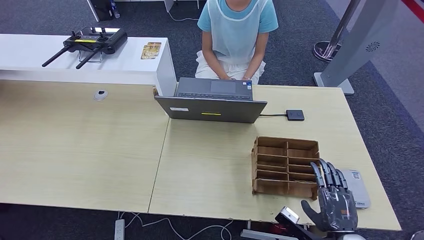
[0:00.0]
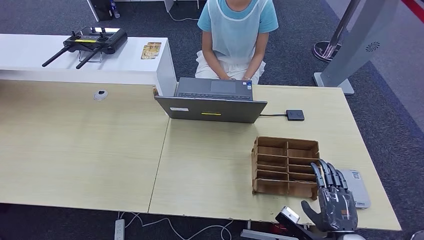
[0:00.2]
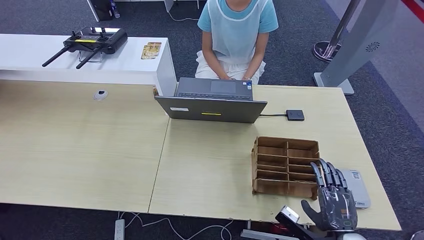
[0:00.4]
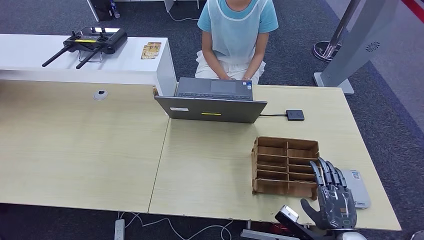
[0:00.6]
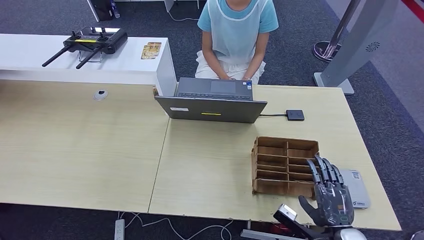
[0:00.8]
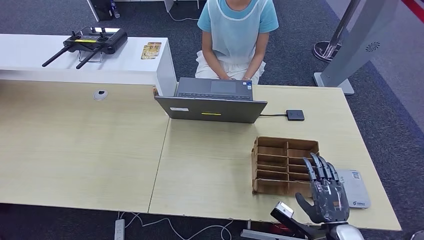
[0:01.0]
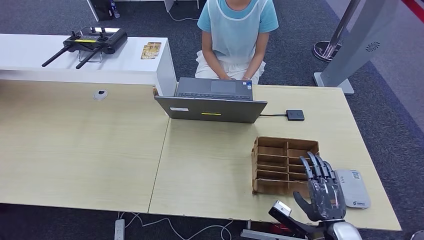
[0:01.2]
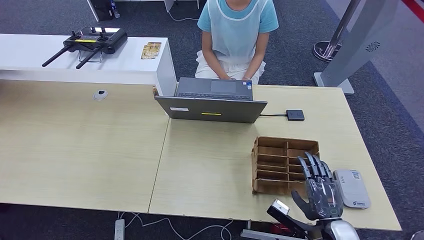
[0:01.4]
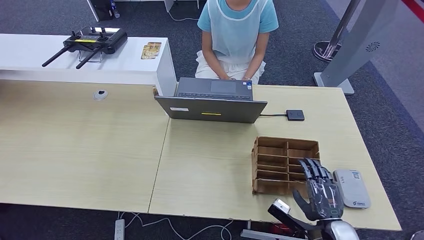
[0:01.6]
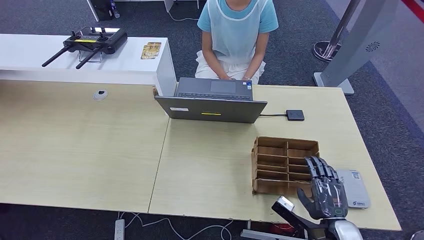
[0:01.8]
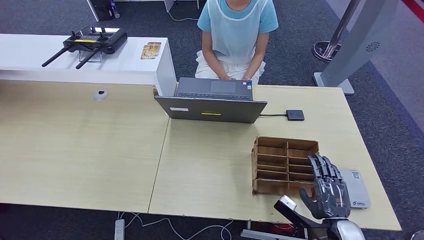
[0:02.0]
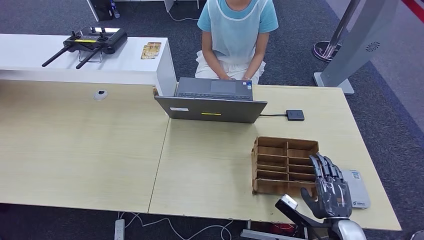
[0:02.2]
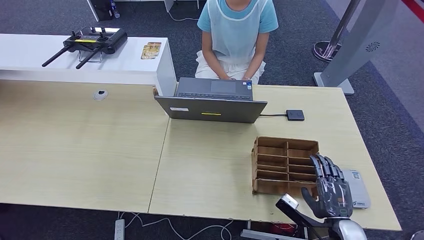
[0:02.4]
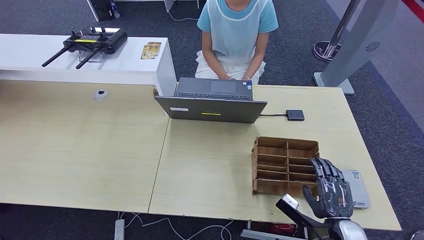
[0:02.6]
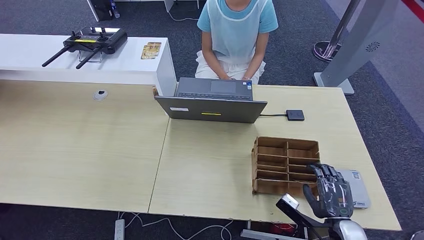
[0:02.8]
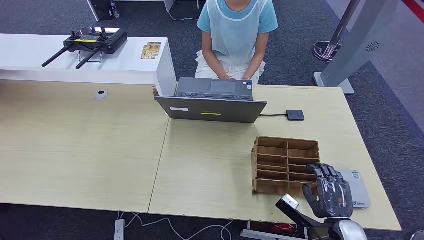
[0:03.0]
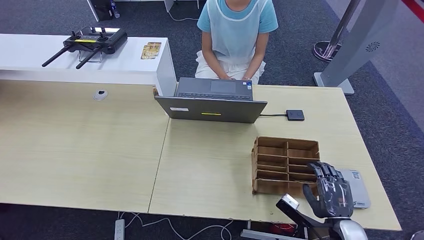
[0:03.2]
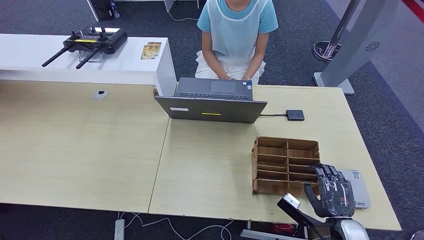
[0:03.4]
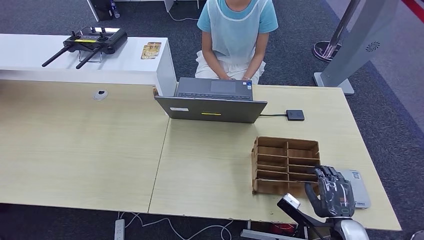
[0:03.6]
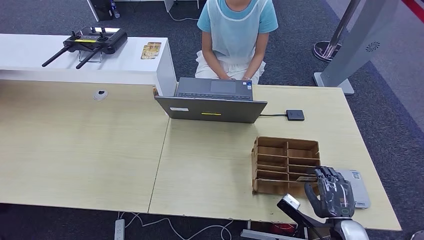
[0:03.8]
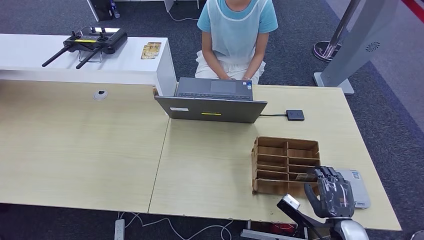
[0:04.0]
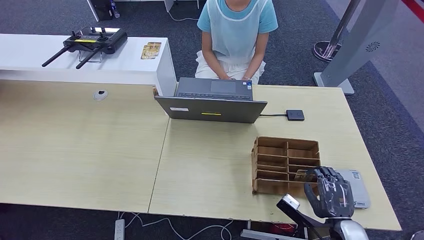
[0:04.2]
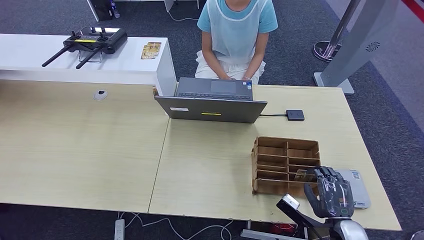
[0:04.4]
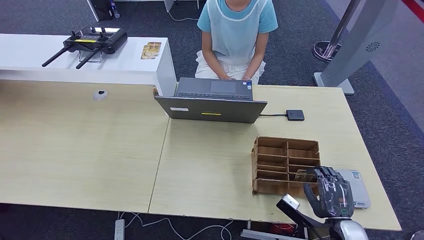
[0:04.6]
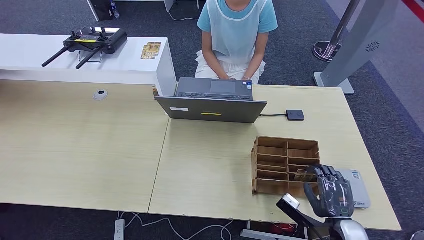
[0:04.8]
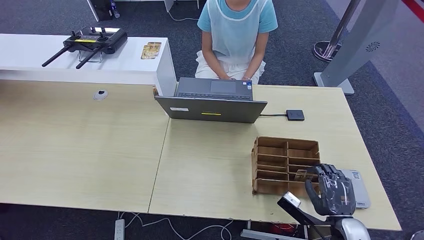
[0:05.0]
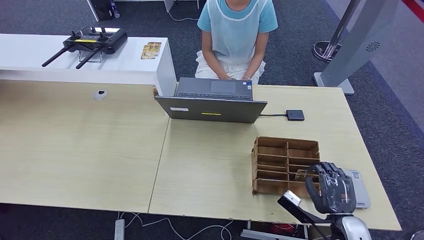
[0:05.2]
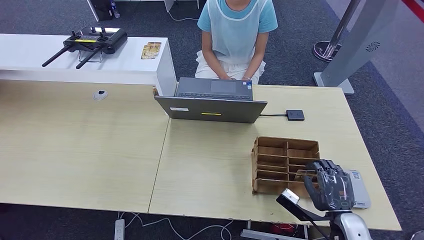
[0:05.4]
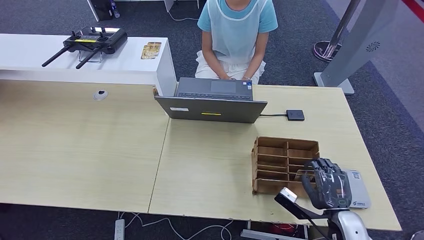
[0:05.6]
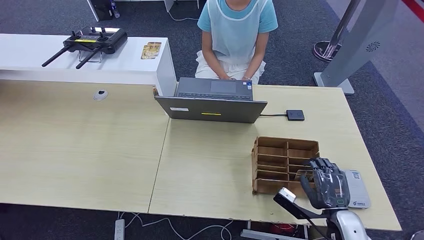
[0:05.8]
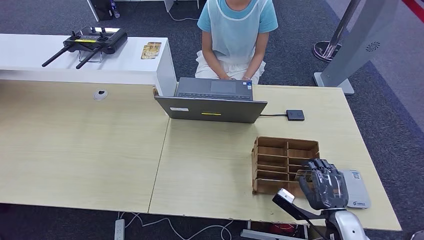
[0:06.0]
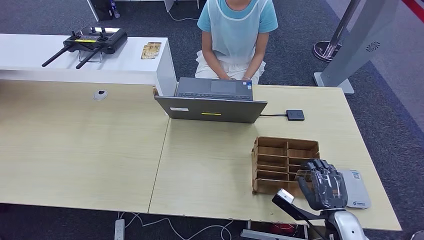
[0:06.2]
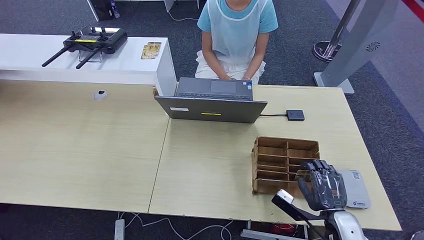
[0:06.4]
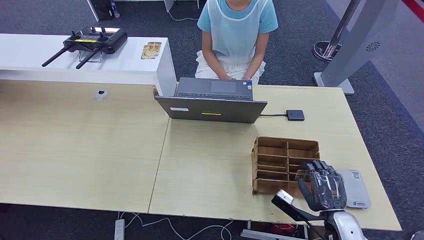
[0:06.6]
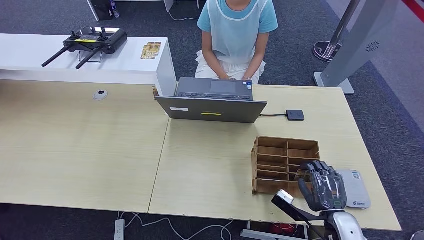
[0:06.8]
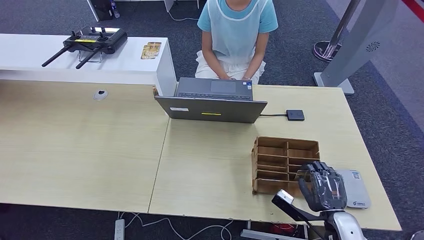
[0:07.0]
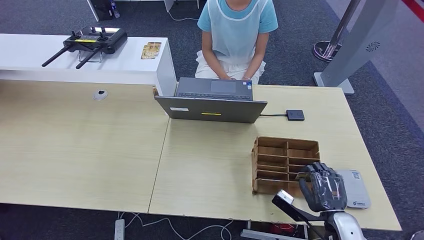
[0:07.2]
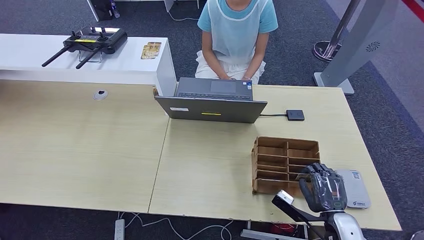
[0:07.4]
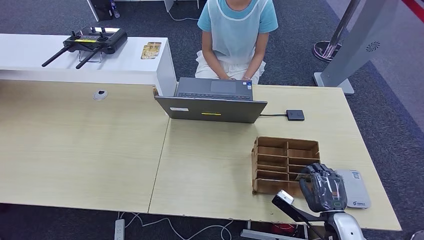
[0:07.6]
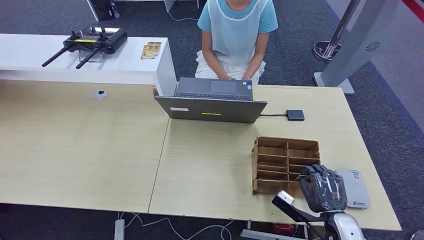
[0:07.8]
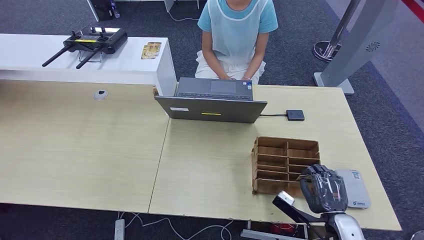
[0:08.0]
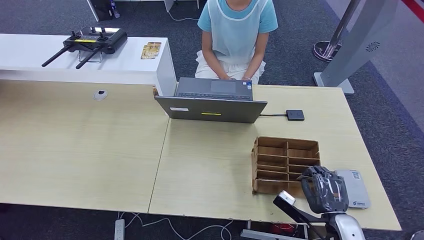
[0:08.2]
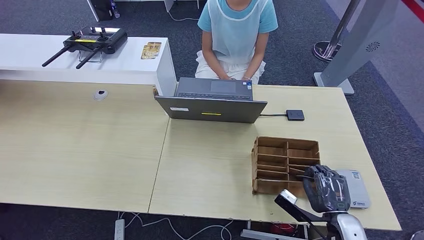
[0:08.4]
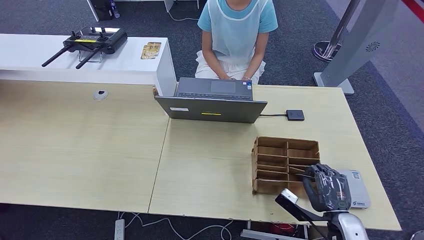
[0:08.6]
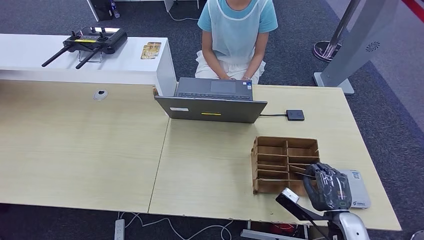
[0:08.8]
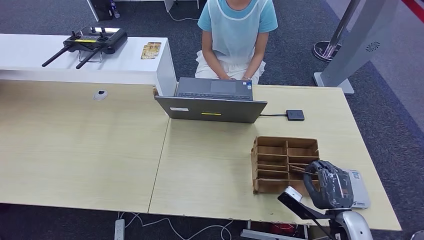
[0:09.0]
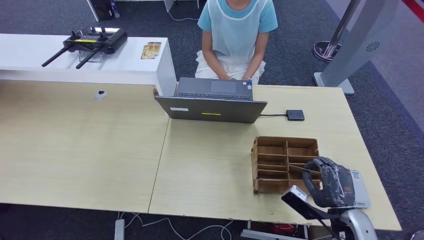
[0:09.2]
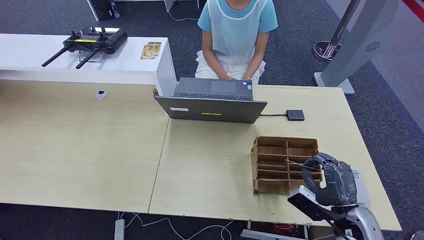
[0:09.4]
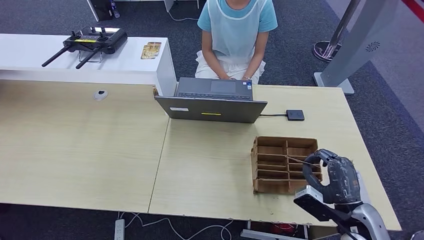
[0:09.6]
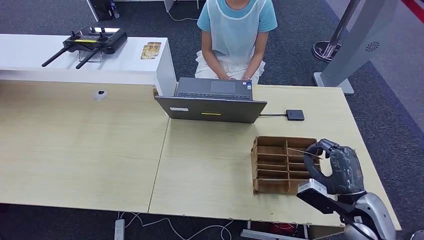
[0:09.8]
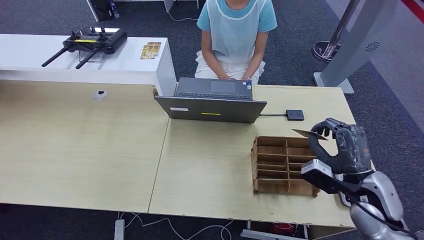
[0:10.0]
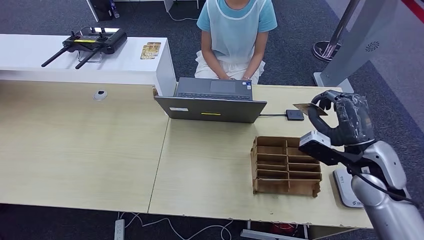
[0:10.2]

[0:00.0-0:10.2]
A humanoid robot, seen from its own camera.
Step, 0:00.0 to 0:09.0: Pick up the room key from the key card box.
0:00.0 to 0:03.0: The hands move only a little.
0:03.0 to 0:04.4: Both hands stay put.
0:04.4 to 0:05.8: The hands move only a little.
0:05.8 to 0:08.8: Both hands stay about where they are.
0:08.8 to 0:10.2: The right hand moves upward and forward, approximately 20 cm.

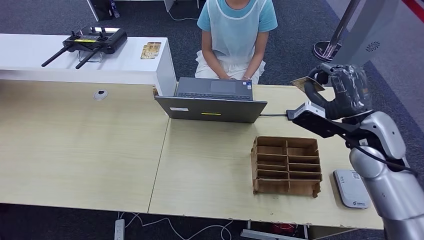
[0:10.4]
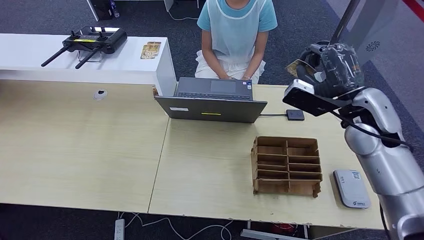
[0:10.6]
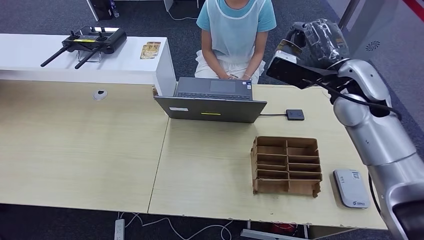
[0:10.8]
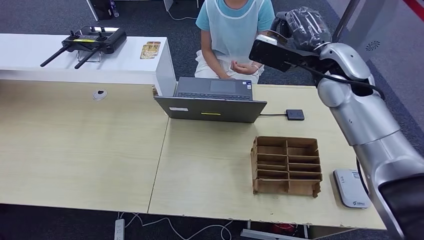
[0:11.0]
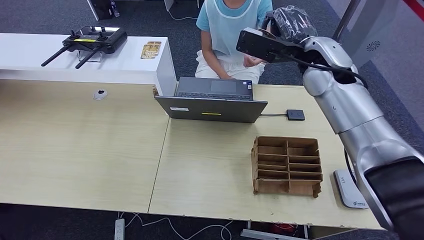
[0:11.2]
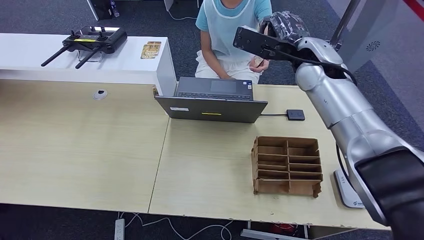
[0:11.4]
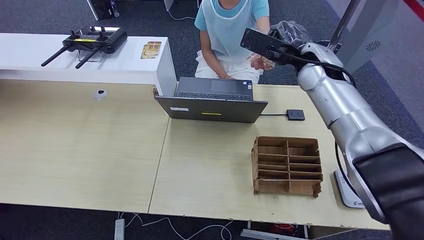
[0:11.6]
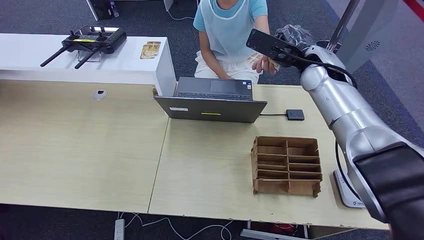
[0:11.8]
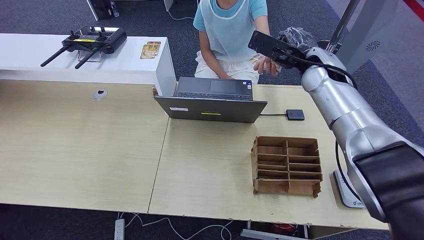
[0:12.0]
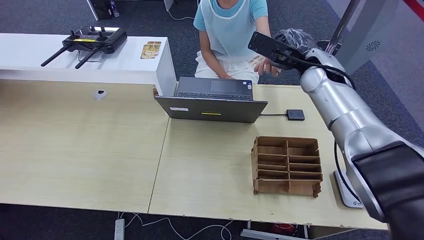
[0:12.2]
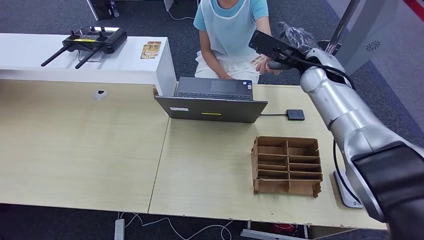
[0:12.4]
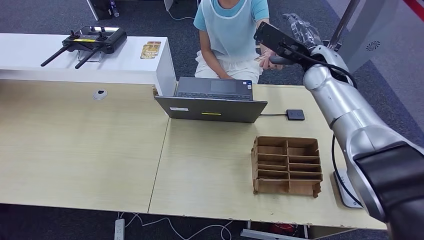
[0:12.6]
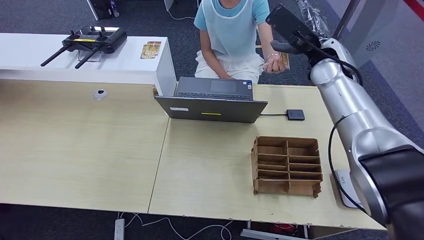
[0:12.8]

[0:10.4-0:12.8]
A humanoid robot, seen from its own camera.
Step, 0:10.4 to 0:12.8: Hand the room key to the person.
0:10.4 to 0:11.6: The right hand is displaced forward, to the left and upward by approximately 20 cm.
0:11.6 to 0:12.8: There are only small adjustments of the hands.
